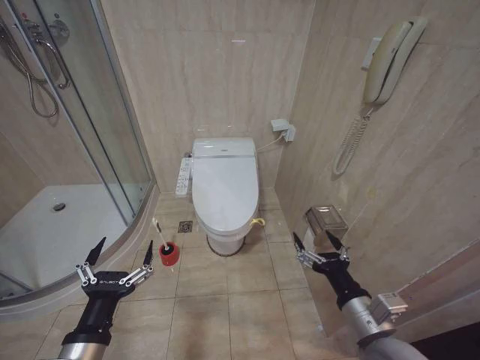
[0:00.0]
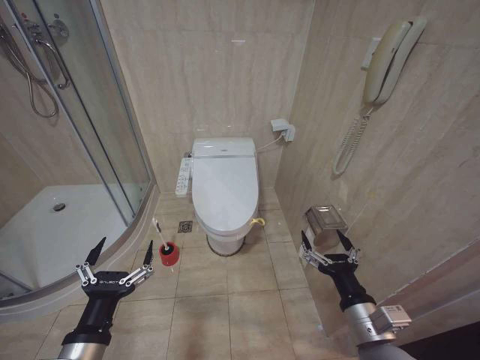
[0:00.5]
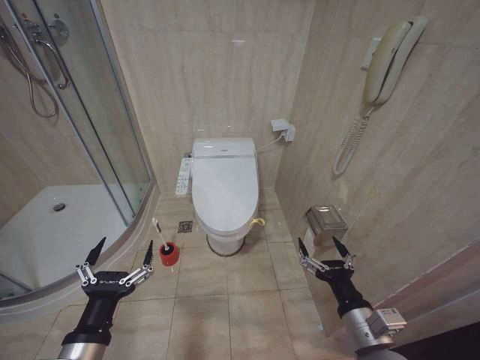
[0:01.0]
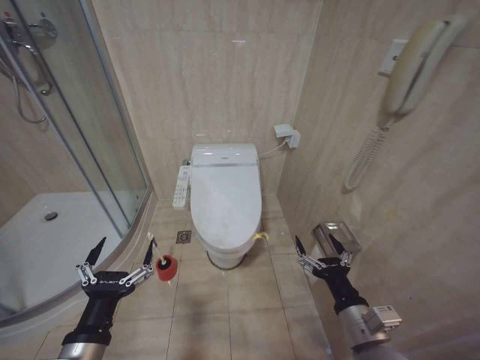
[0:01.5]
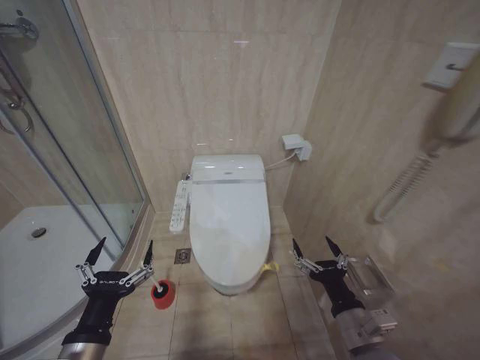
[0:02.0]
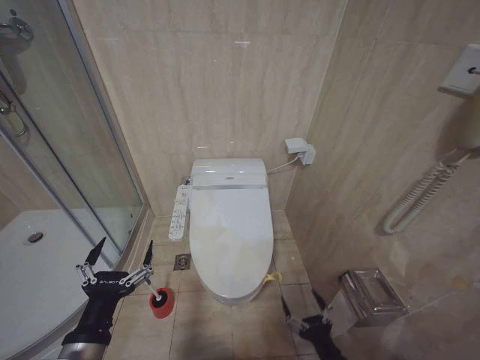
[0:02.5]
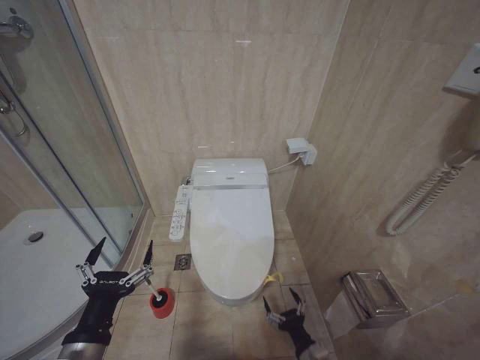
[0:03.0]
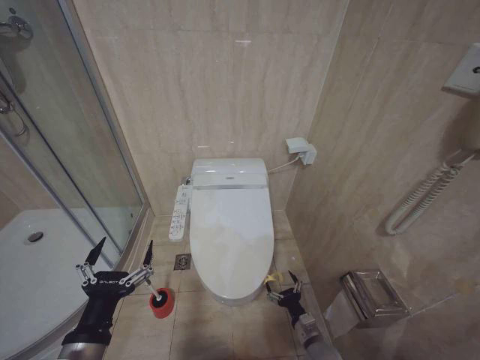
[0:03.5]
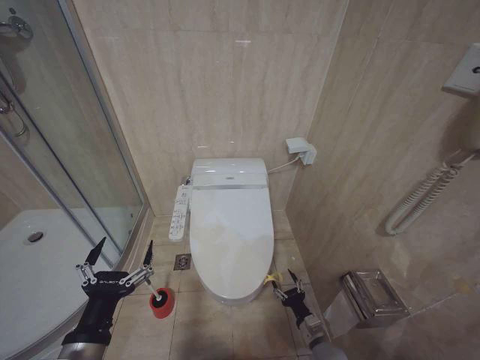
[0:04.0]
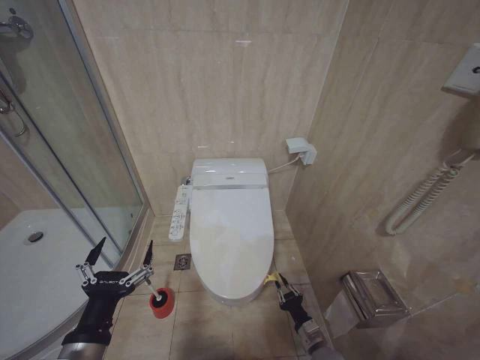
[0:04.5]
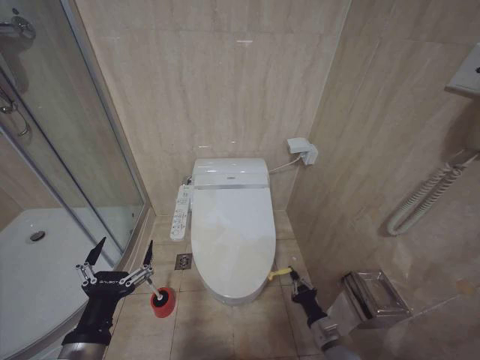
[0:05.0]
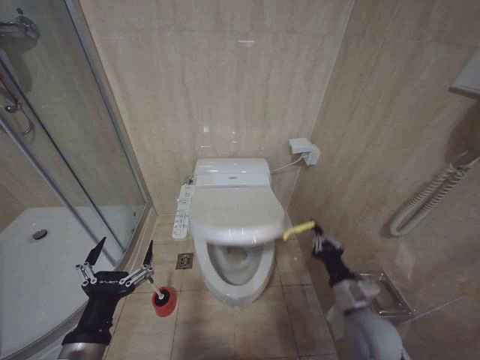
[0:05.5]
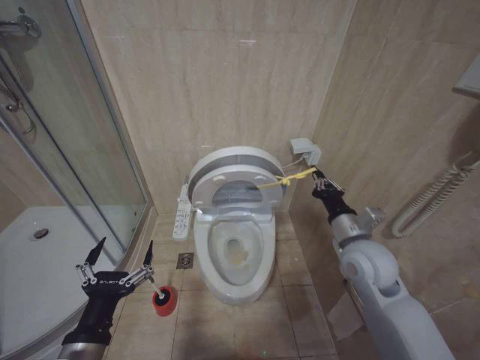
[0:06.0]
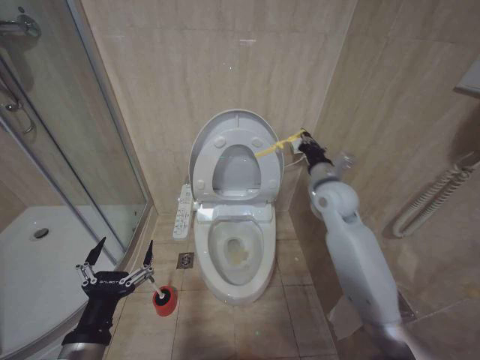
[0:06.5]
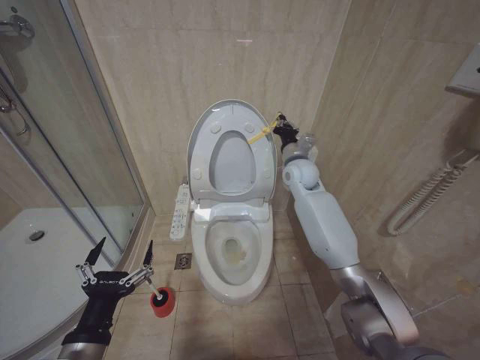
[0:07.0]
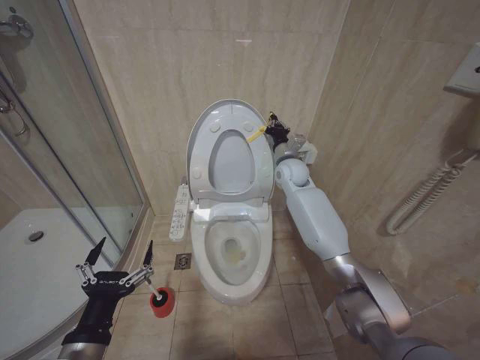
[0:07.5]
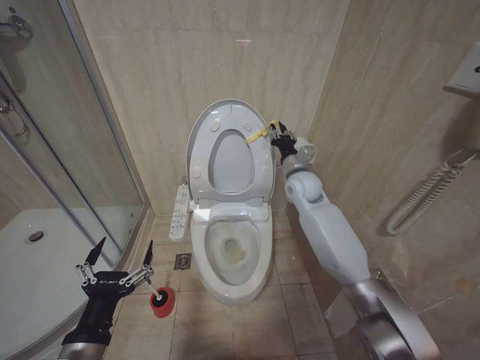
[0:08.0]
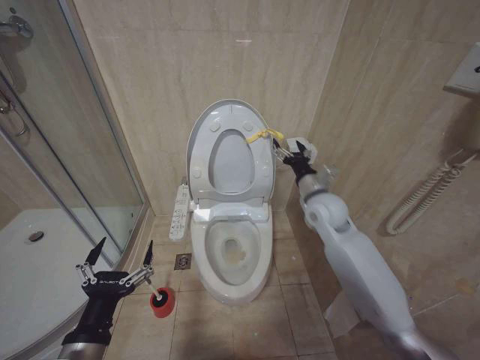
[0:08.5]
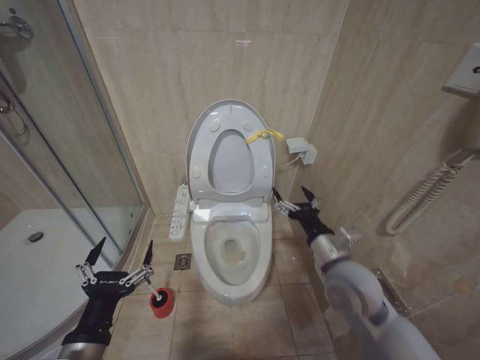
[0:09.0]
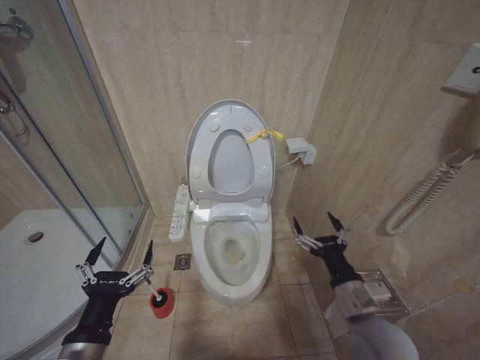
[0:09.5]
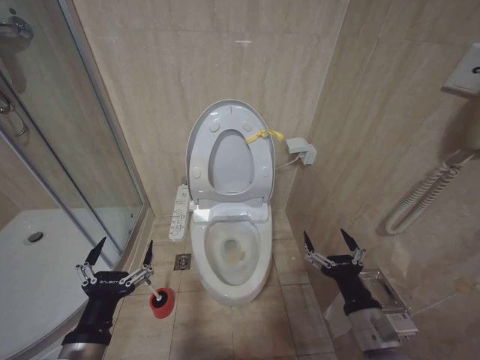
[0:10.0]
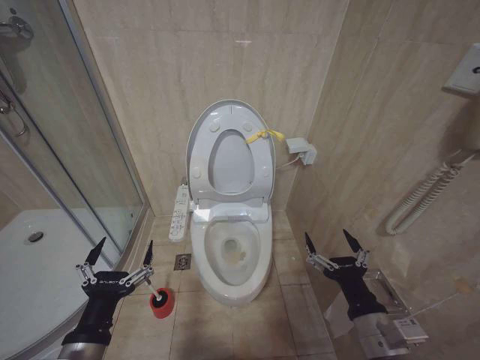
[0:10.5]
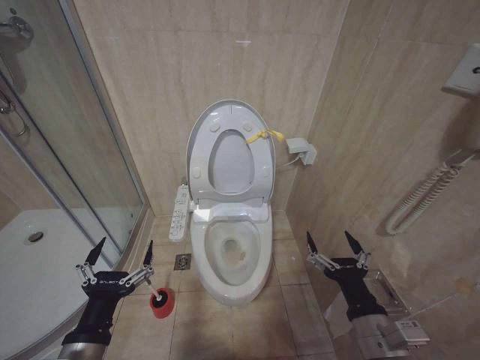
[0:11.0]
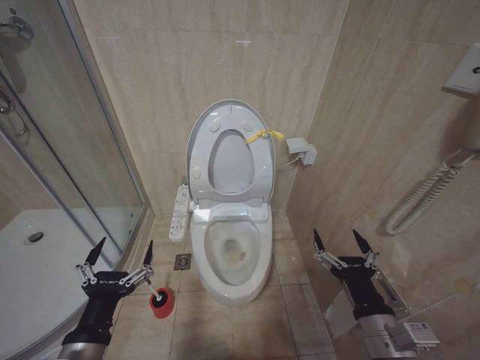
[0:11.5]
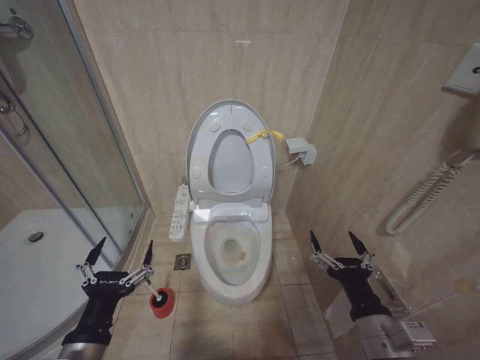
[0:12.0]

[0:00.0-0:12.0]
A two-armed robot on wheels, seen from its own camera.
Task of the whole recording: Open the toilet lid, clean the toilet bowl with a toilet brush, close the toilet lid, and flush.
2.0 to 4.0 s: The right gripper moves downward, approximately 25 cm.
4.0 to 6.0 s: The right gripper shifts roughly 35 cm upward, and closes up.
6.0 to 8.0 s: The right gripper travels forward by roughly 20 cm.
8.0 to 10.0 s: The right gripper is displaced backward by some 40 cm, and opens.
10.0 to 12.0 s: There are only small adjustments of the grippers.

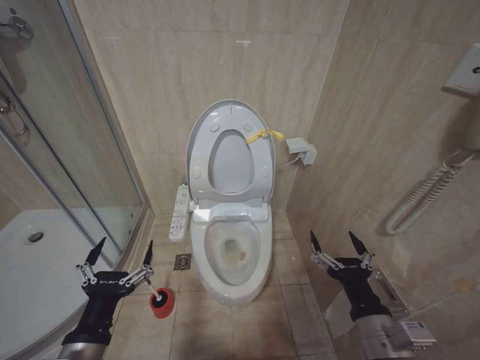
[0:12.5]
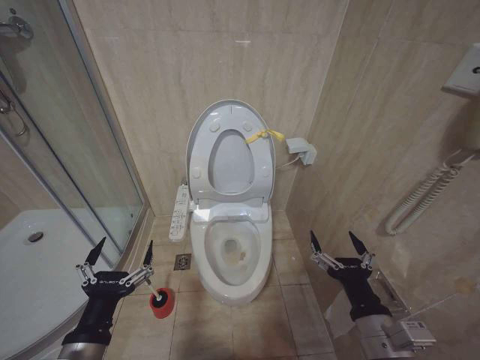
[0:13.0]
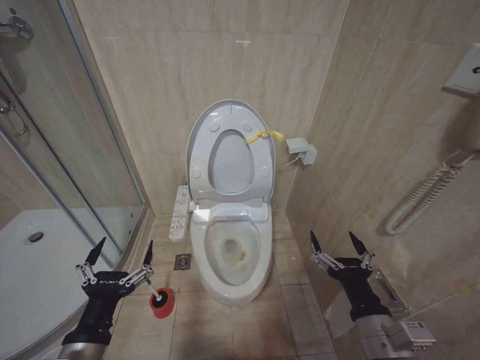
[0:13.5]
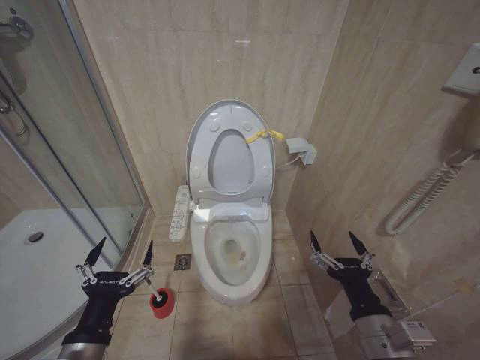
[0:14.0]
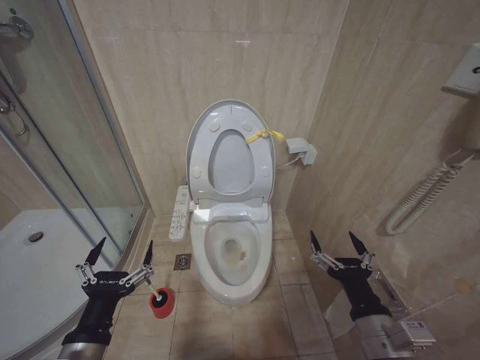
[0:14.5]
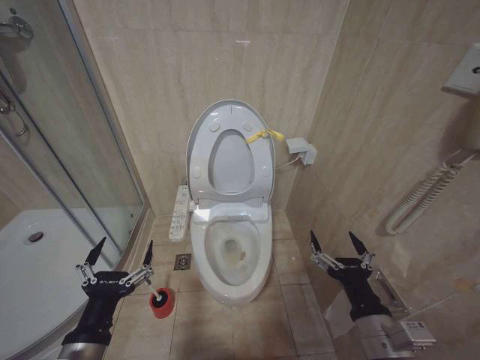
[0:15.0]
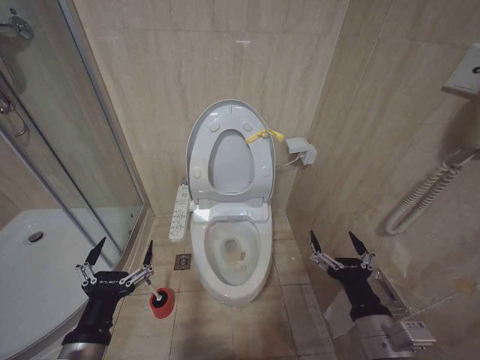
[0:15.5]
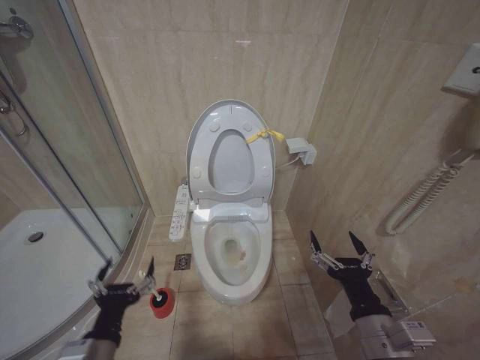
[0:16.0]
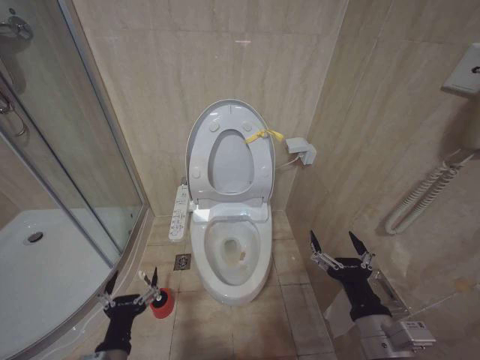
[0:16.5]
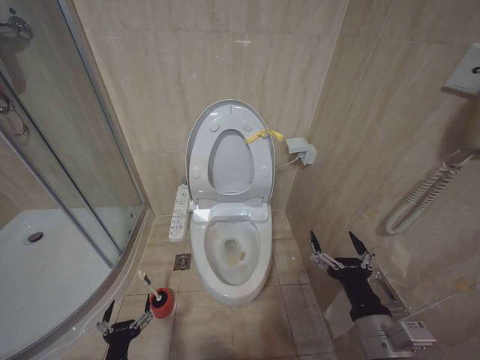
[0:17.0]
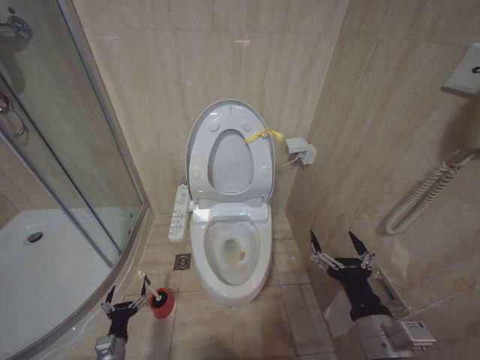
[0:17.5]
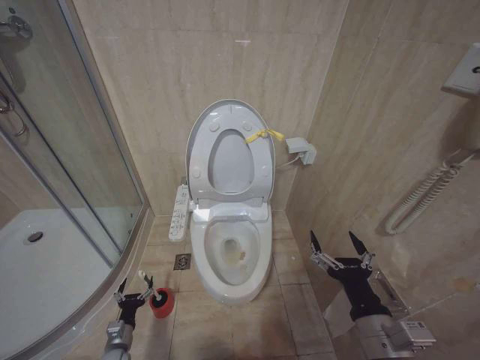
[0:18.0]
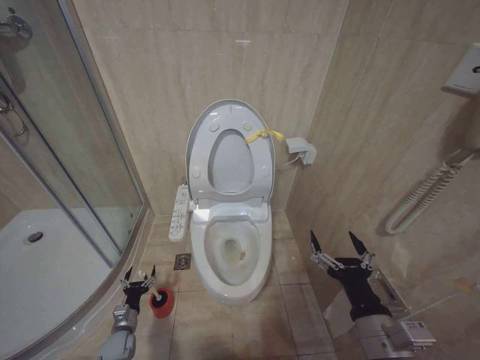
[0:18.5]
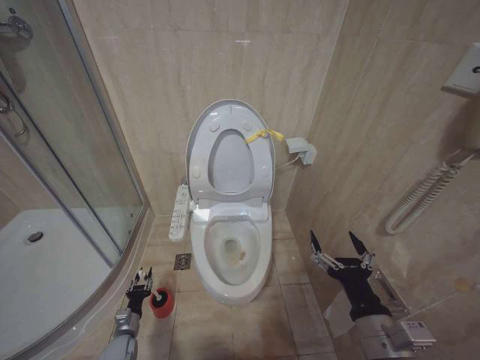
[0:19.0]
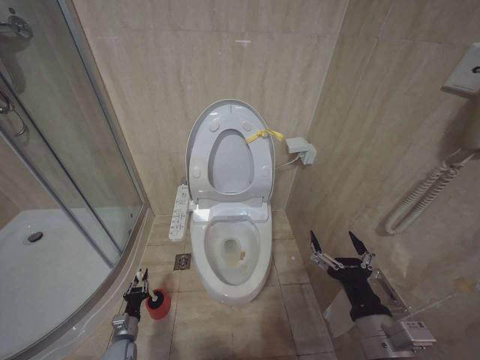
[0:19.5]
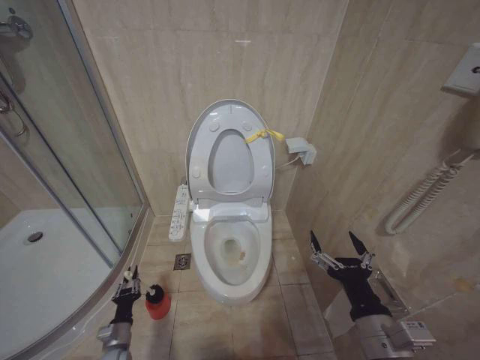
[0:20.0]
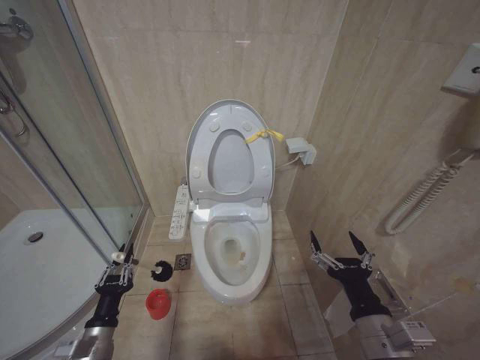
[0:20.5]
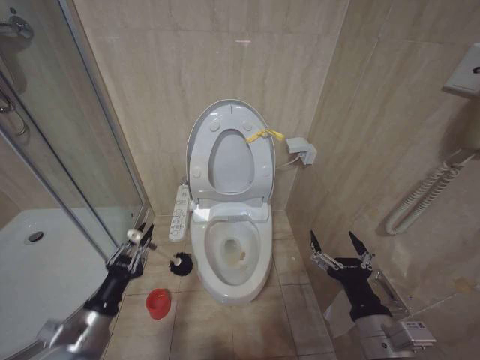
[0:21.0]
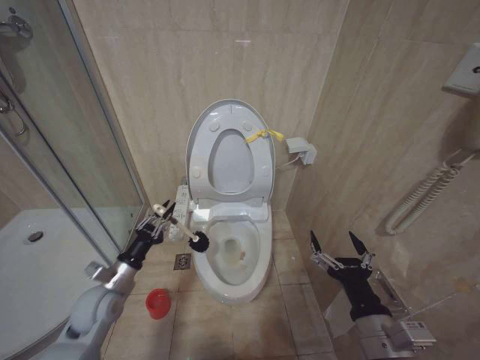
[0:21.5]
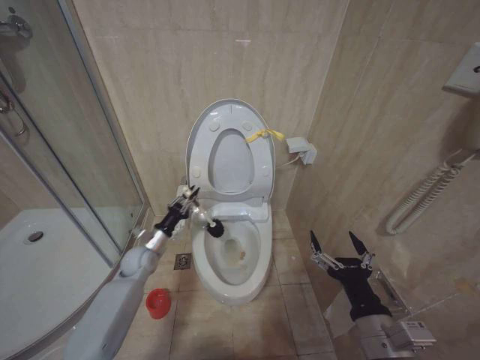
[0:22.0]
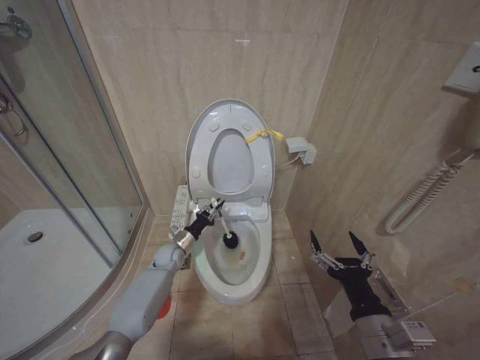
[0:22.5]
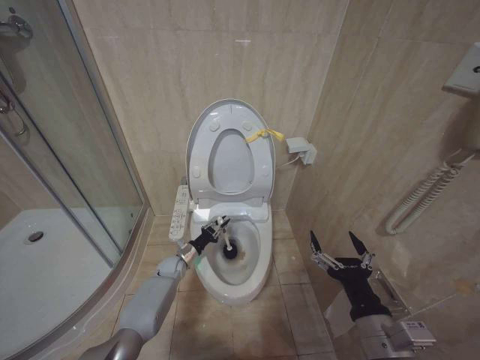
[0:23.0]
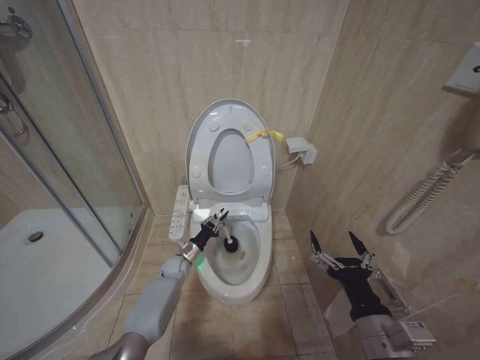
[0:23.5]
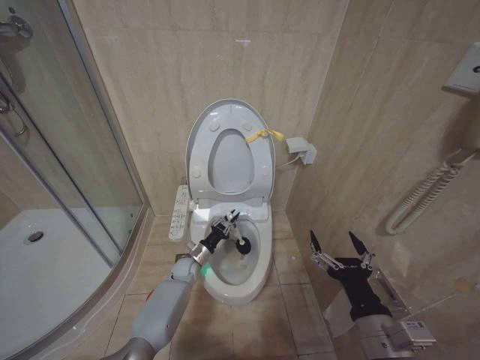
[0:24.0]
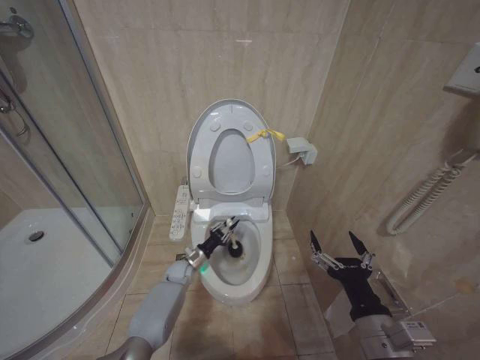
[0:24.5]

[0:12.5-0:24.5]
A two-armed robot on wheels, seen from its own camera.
Task of the whole recording: Open the toilet lid, clean the toilet bowl with a toilet brush, close the toilet lid, and flush.
12.5 to 14.5 s: Both grippers stay about where they are.
14.5 to 16.5 s: The left gripper travels downward by roughly 10 cm.
16.5 to 18.5 s: The left gripper shifts about 35 cm downward, forward and to the left.
18.5 to 20.5 s: The left gripper moves upward and backward, some 20 cm, and closes its fingers.
20.5 to 22.5 s: The left gripper moves forward, about 30 cm.
22.5 to 24.5 s: The left gripper moves downward, about 10 cm.

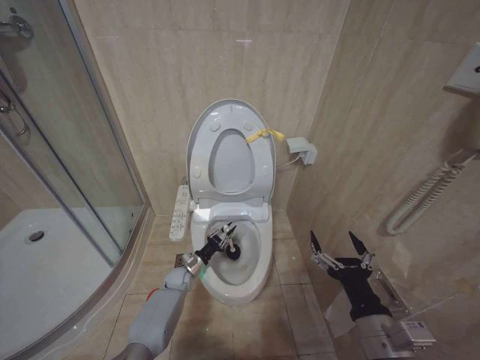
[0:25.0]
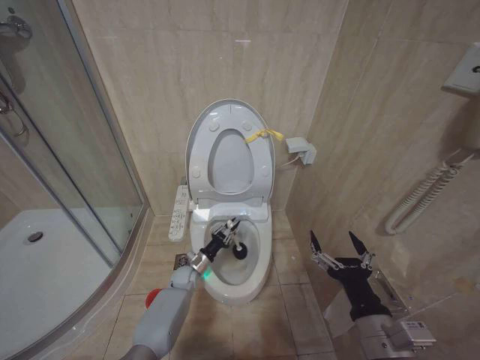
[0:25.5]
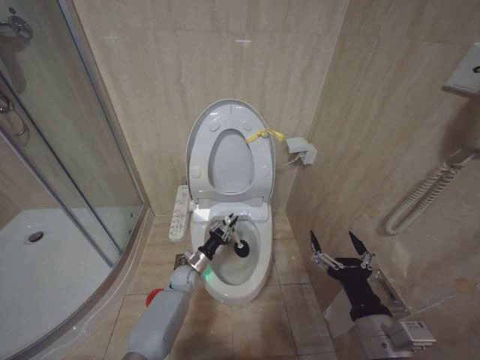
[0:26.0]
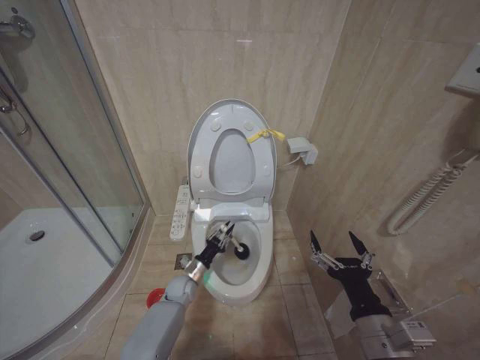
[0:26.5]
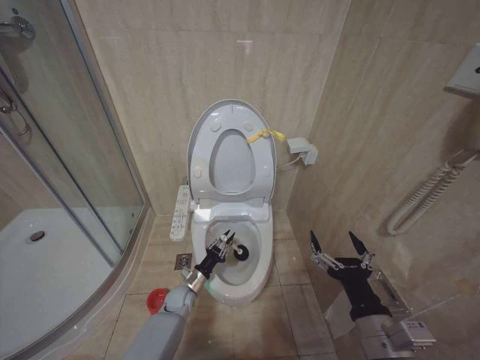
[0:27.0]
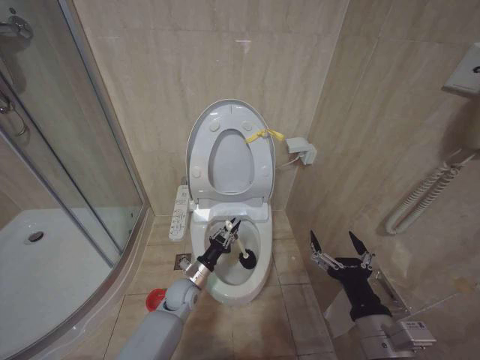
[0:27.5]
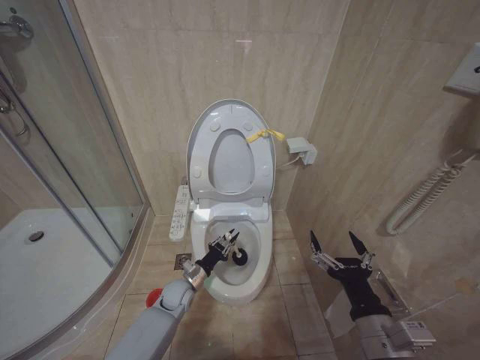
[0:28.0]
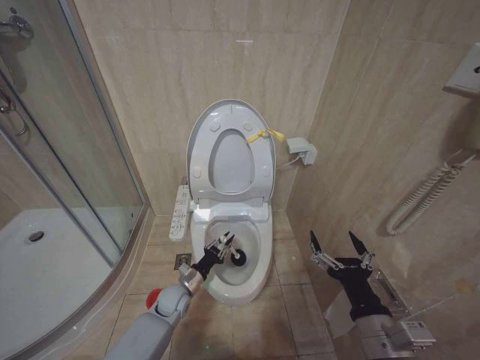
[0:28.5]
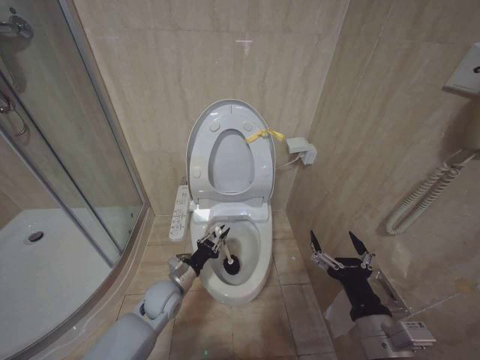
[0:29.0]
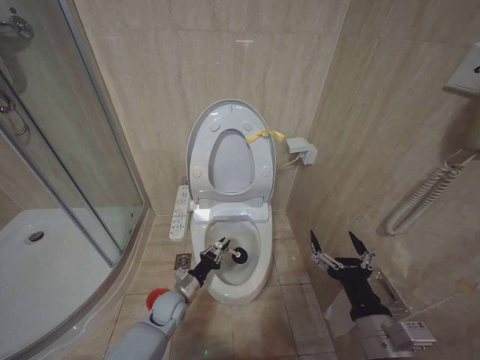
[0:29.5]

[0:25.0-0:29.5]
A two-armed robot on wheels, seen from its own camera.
Task of the whole recording: Open the toilet lid, clean the toilet bowl with a toilet brush, close the toilet lid, and flush.
25.0 to 27.0 s: The left gripper travels backward by approximately 5 cm.
